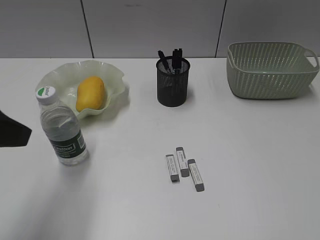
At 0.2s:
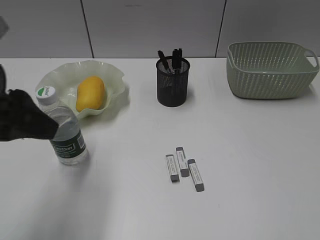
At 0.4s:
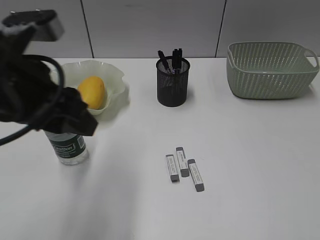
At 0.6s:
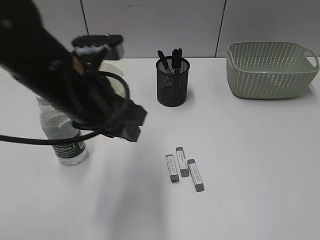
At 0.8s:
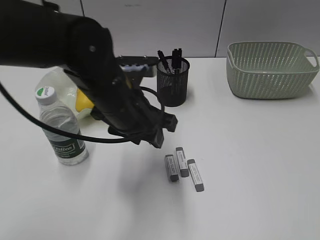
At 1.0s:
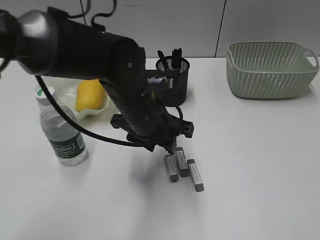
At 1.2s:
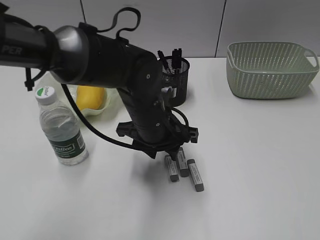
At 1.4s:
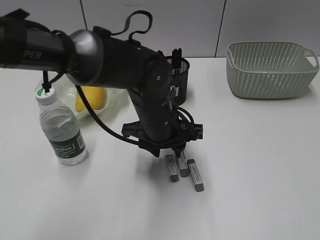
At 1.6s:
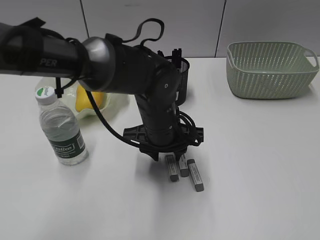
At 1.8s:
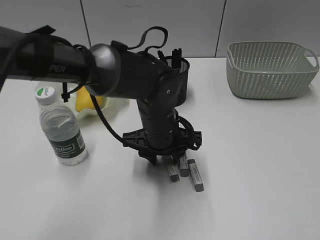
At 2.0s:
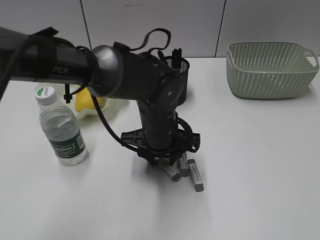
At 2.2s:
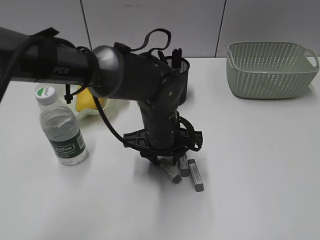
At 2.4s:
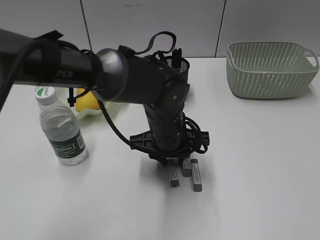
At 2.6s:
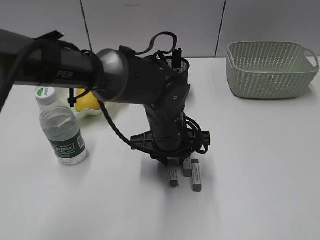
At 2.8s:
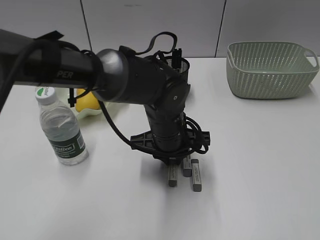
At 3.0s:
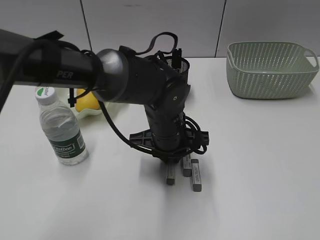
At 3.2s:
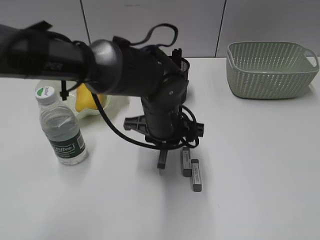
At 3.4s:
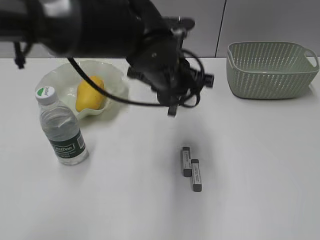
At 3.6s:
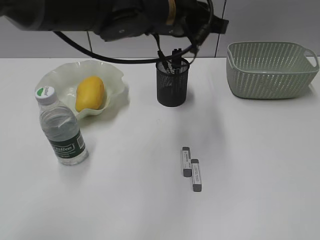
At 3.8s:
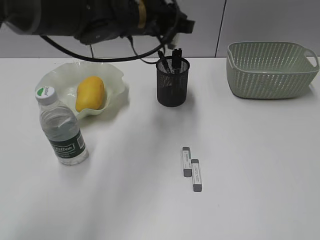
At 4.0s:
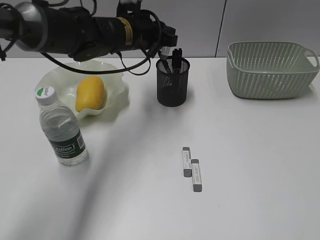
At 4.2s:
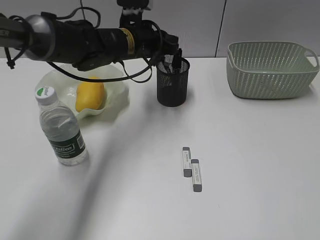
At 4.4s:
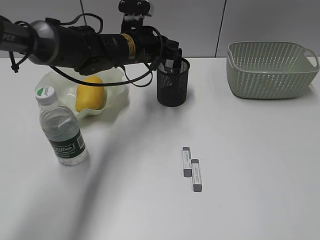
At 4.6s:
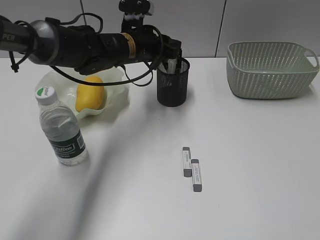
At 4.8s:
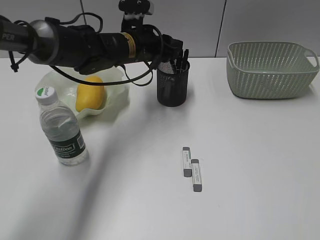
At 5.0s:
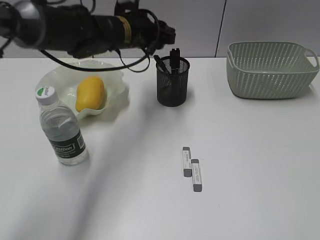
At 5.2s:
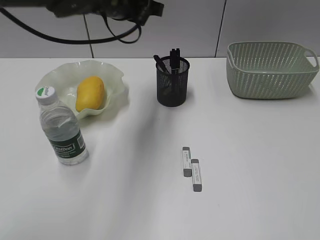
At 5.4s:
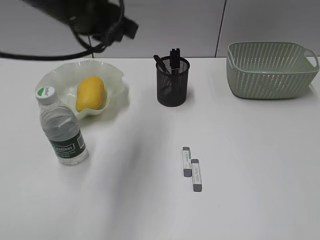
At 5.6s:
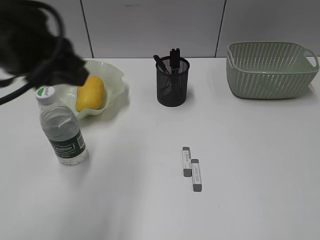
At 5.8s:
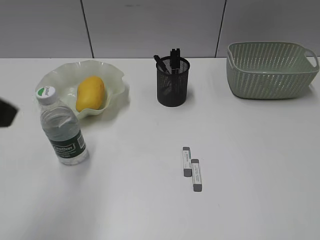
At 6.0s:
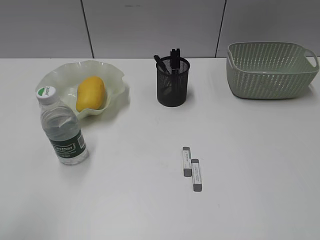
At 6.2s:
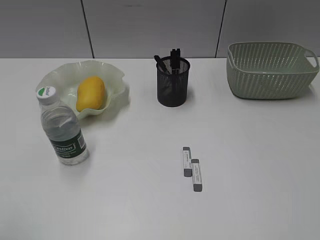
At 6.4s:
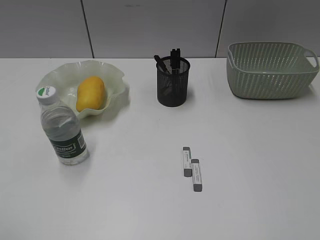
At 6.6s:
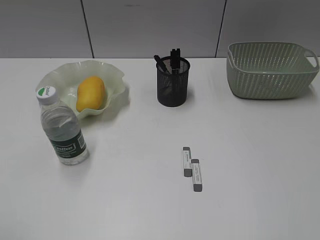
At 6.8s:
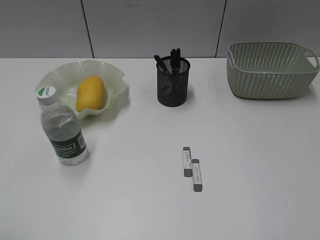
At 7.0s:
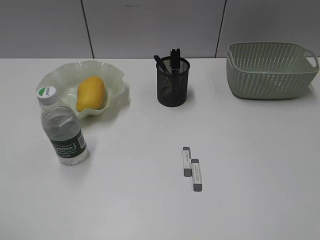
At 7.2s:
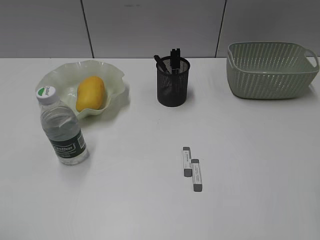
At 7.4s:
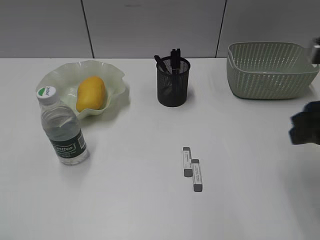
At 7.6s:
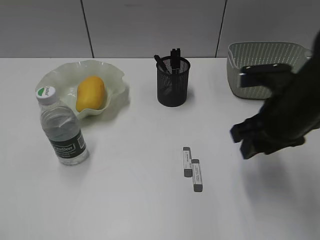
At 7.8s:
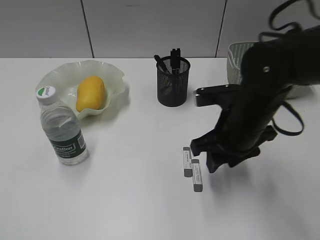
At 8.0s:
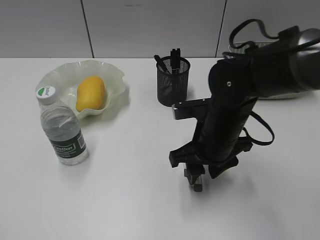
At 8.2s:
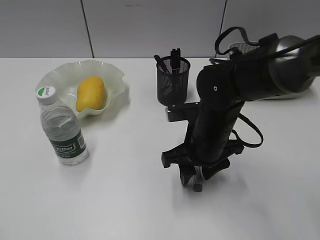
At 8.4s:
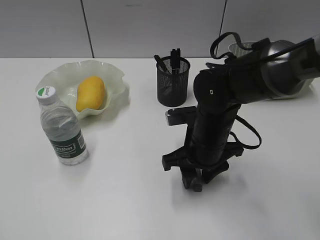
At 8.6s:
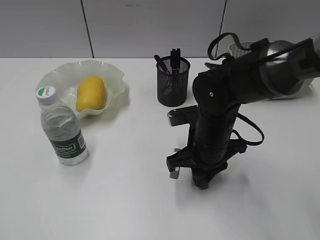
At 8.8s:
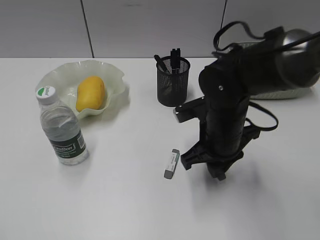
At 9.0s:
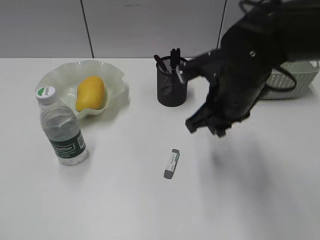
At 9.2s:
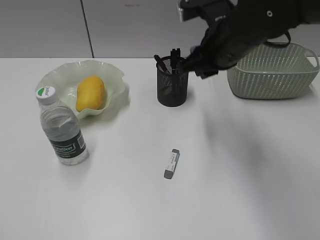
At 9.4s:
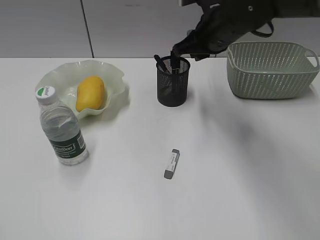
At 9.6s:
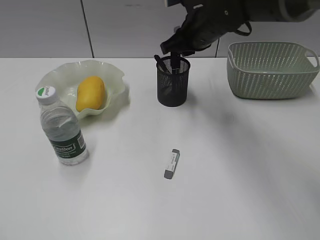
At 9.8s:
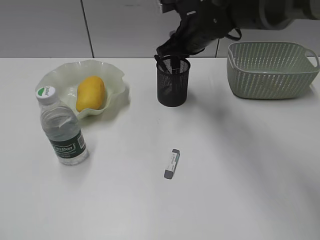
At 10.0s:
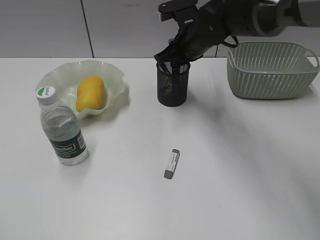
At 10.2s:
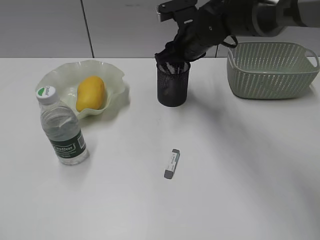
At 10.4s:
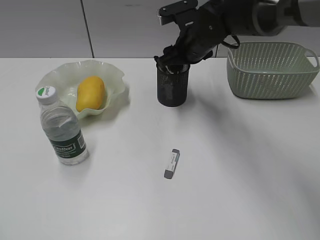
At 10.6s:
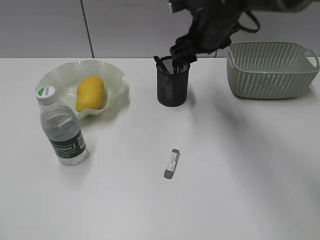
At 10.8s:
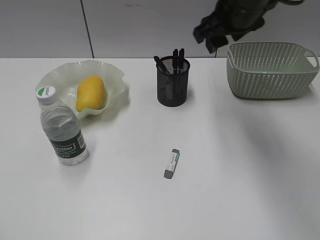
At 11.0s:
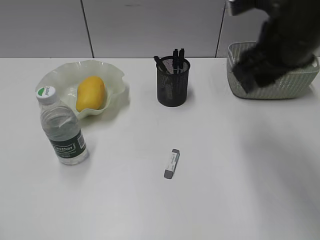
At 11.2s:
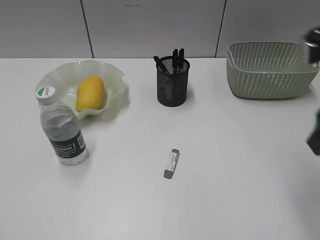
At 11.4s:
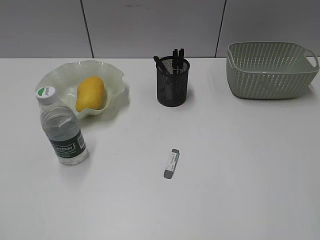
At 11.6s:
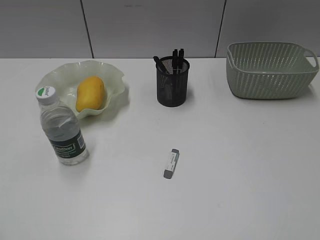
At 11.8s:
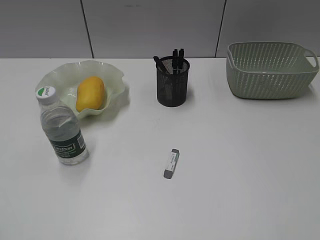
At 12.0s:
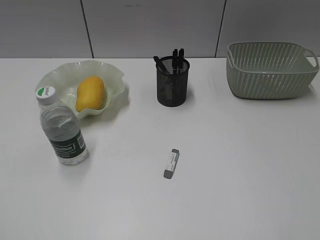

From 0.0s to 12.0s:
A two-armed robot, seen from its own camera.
Step, from 0.0s to 2.8s: Grasp the eraser with left gripper.
Step, from 3.0s to 4.8s: Place the eraser in pen holder with left gripper.
Step, from 5.0s to 8.6s: Grasp the eraser with right gripper.
Step, from 8.8s to 10.4s: Place the eraser in pen holder with right gripper.
From 0.0s to 1.6s: The left gripper heads to the right, downward and forward, covering about 30 cm.
From 1.6s to 3.0s: The left gripper closes.
From 3.0s to 4.4s: The left gripper travels forward, to the left and upward by some 15 cm.
From 4.4s to 6.0s: The left gripper goes some 40 cm backward and to the left.
From 6.0s to 7.6s: The right gripper heads forward and to the left, covering approximately 30 cm; the left gripper goes some 10 cm backward and to the left.
From 7.6s to 9.0s: The right gripper shifts approximately 10 cm to the left, and closes.
From 9.0s to 10.4s: The right gripper moves forward, roughly 15 cm, and opens.
From 10.4s to 12.0s: The right gripper moves backward and to the right, approximately 50 cm.

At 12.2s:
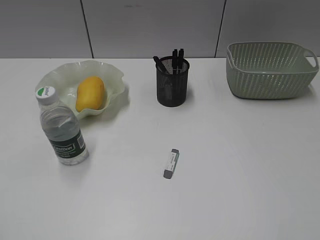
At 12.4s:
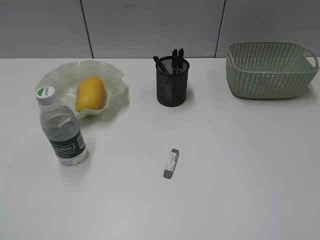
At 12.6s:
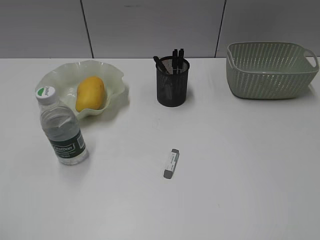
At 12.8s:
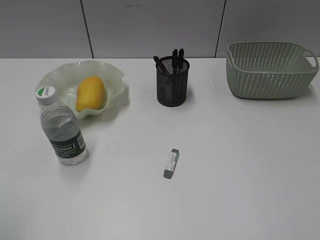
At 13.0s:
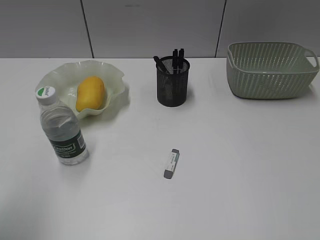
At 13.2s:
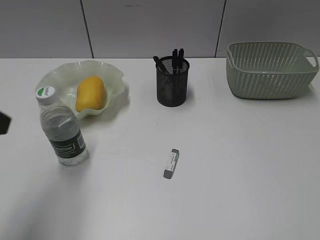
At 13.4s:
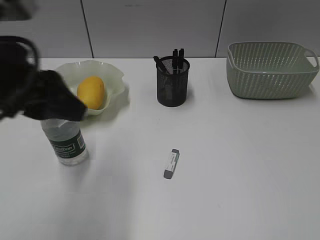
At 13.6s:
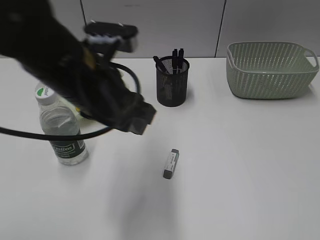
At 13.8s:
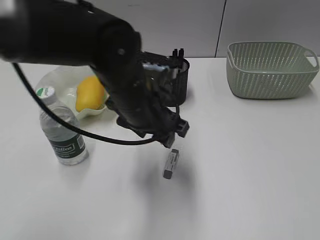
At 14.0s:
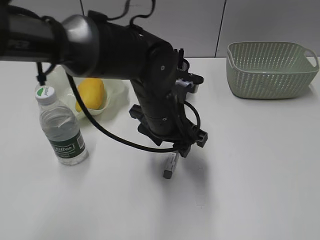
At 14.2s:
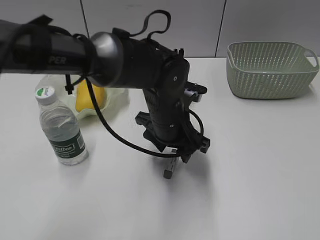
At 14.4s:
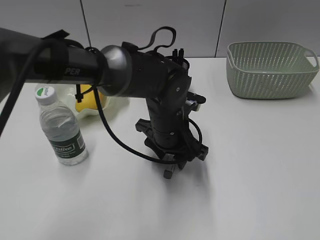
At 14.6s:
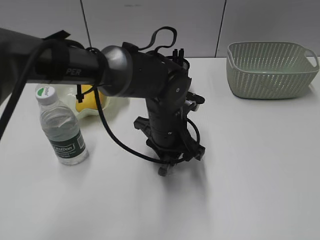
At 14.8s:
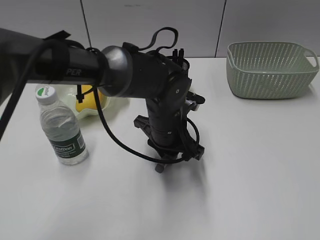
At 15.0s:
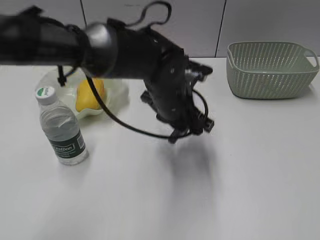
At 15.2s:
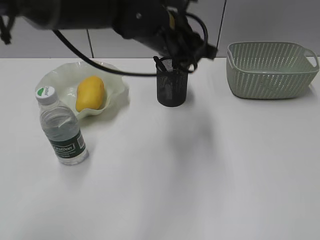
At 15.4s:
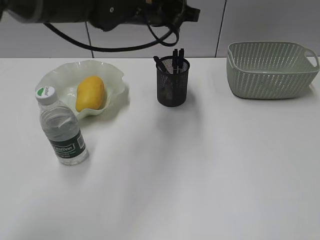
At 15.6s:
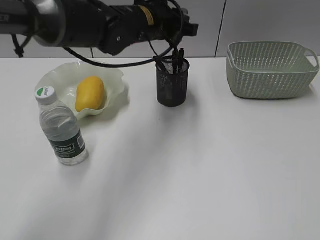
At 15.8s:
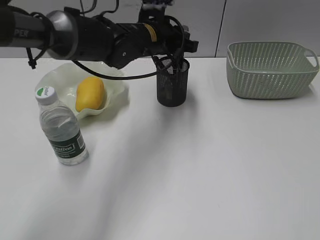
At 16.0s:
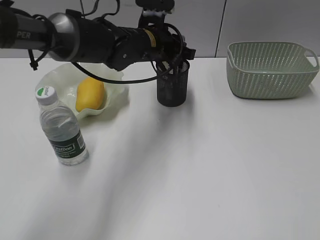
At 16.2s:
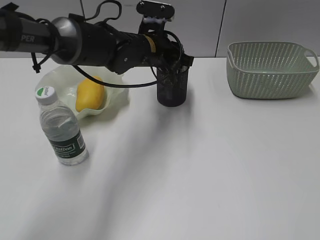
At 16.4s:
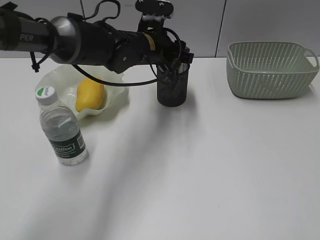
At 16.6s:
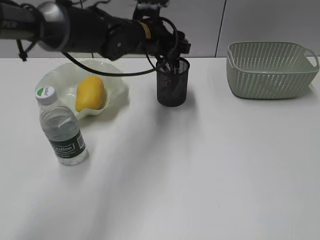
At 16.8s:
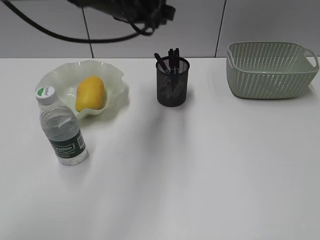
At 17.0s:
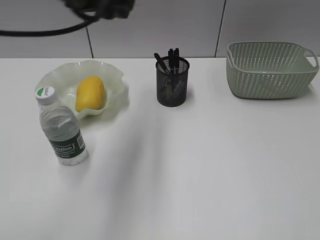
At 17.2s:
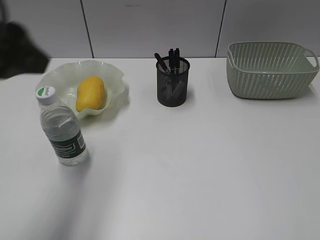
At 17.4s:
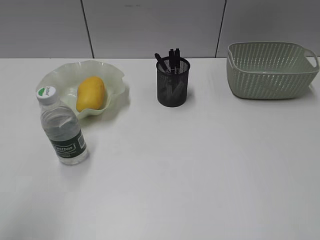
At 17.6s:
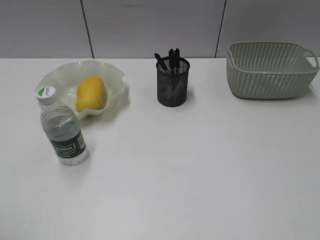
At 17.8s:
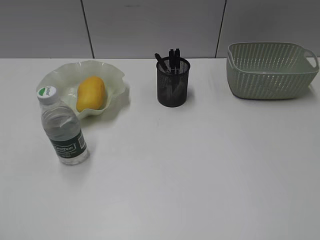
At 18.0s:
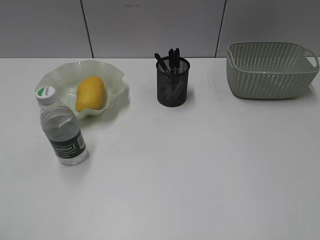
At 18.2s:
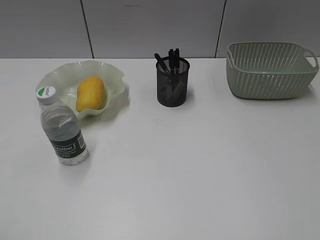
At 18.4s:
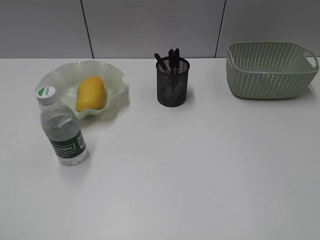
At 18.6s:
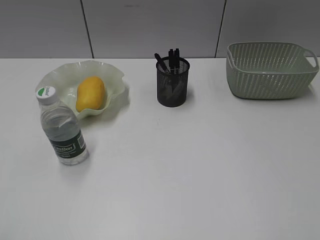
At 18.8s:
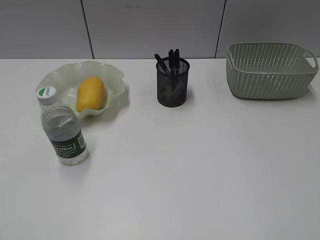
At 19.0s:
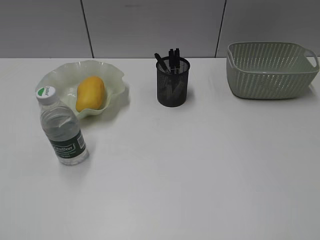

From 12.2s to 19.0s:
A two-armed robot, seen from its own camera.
Step, from 12.2s to 14.6s: Grasp the eraser with left gripper.
Step, from 14.8s to 16.6s: Place the eraser in pen holder with left gripper.
From 12.2s to 13.6s: The left gripper goes about 35 cm to the right and forward.
From 13.6s to 15.0s: The left gripper goes roughly 20 cm to the right, downward and forward, and closes.
From 15.0s to 16.2s: The left gripper travels forward by roughly 10 cm, and reaches roughly 15 cm upward, then returns.
From 16.2s to 17.6s: The left gripper heads backward and to the left, covering about 50 cm, and opens its fingers.

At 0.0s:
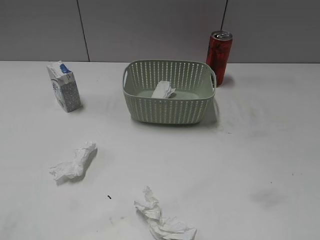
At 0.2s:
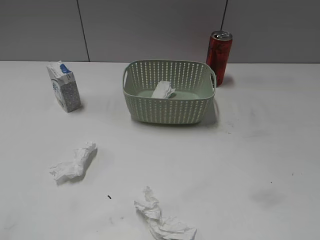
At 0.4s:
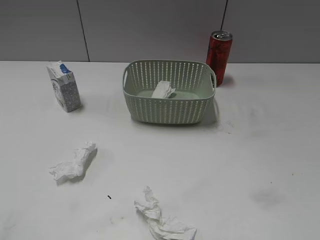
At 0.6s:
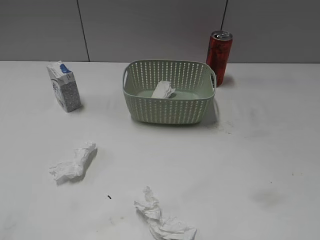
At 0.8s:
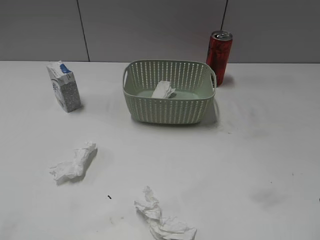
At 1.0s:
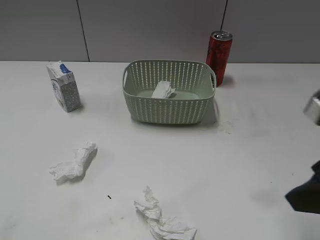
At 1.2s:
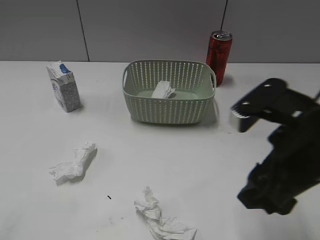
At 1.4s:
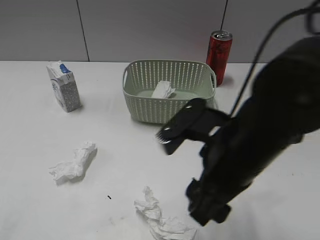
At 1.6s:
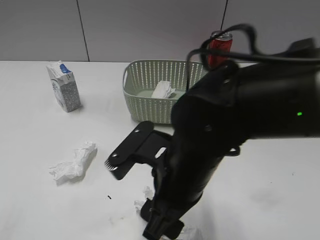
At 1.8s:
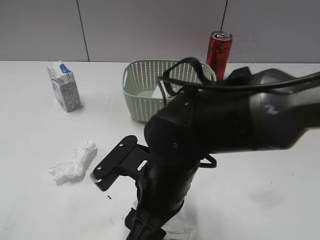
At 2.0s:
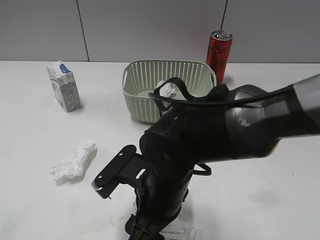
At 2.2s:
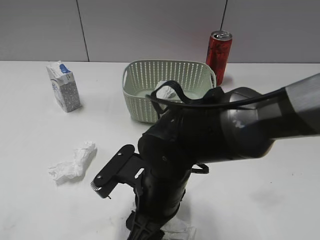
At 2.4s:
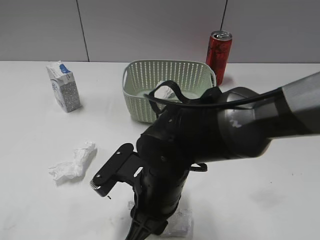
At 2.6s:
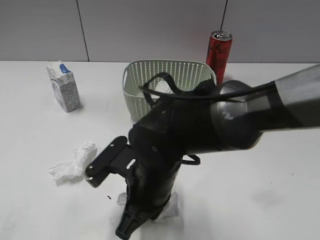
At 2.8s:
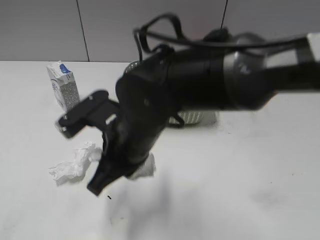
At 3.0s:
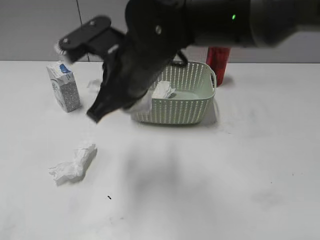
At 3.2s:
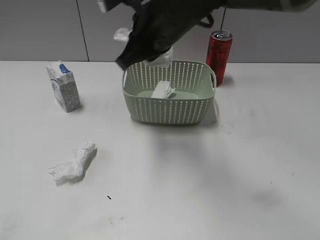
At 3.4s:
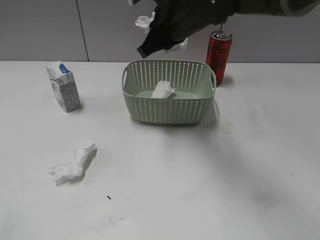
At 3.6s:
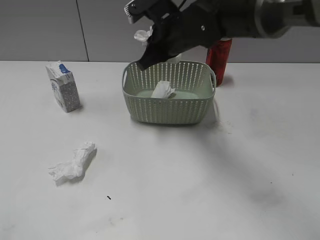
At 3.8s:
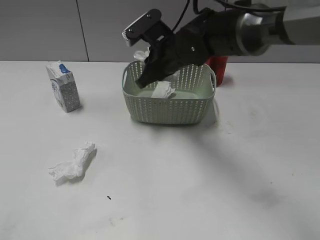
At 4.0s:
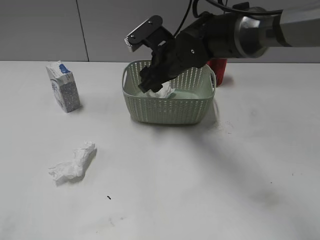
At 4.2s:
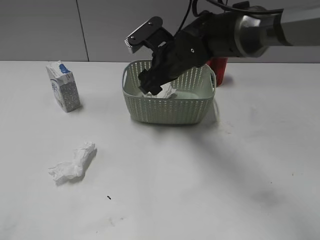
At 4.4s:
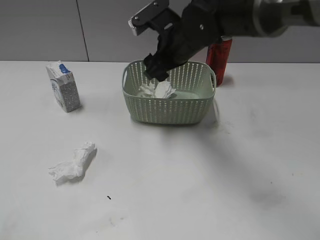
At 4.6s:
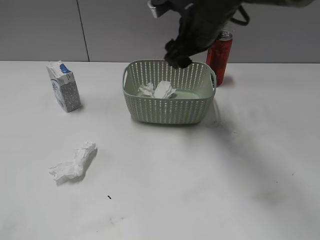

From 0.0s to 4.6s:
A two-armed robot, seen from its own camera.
Step, from 0.8s to 2.6s: Grasp the waste paper with right gripper.
Step, from 2.8s to 4.0s: Place the waste paper in the basket with right gripper.
From 1.6s to 3.0s: The right gripper shifts some 15 cm forward, to the left and upward, and closes.
From 3.0s to 4.6s: The right gripper is displaced forward and to the right by approximately 15 cm, and opens up.
